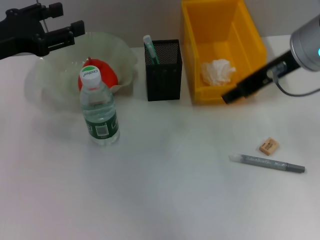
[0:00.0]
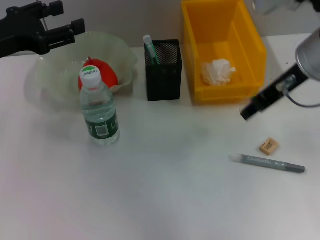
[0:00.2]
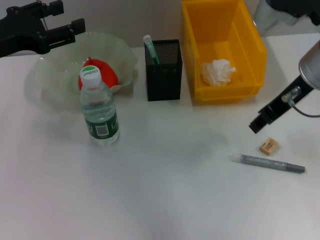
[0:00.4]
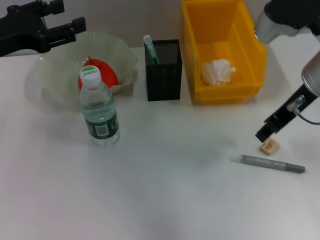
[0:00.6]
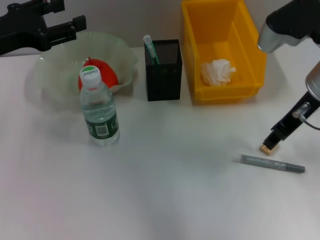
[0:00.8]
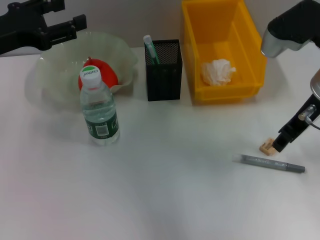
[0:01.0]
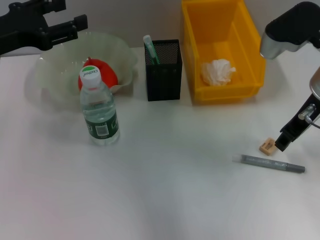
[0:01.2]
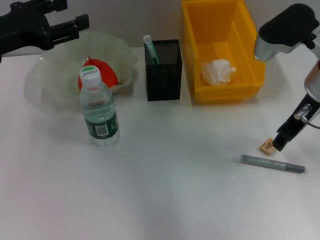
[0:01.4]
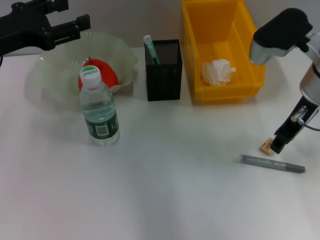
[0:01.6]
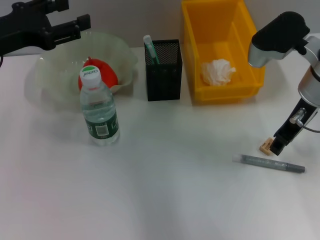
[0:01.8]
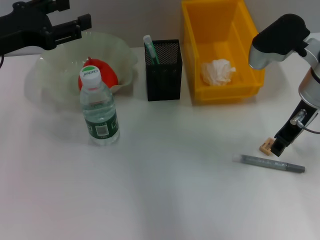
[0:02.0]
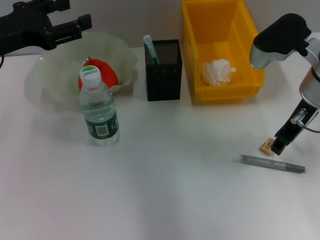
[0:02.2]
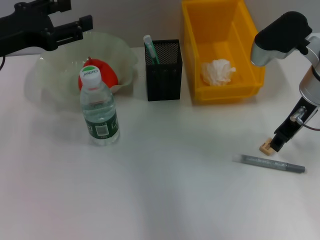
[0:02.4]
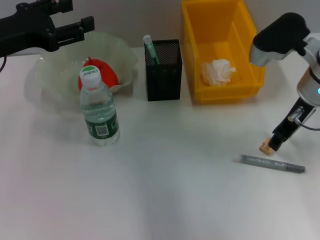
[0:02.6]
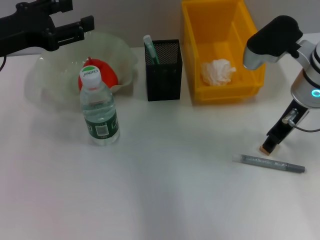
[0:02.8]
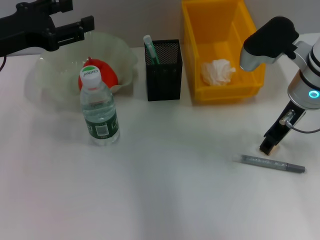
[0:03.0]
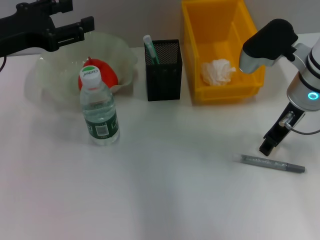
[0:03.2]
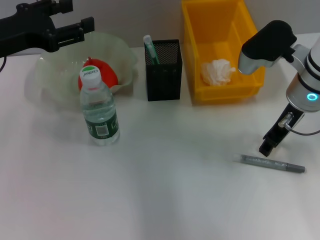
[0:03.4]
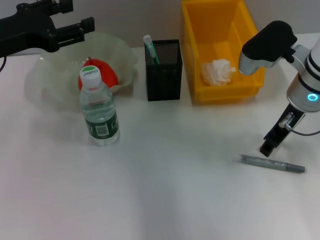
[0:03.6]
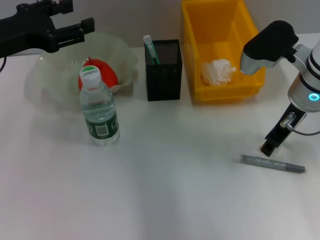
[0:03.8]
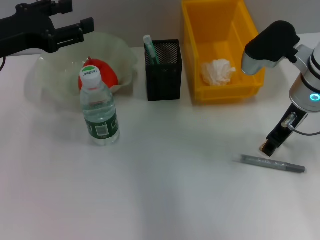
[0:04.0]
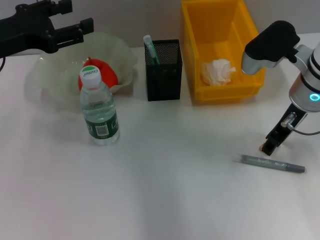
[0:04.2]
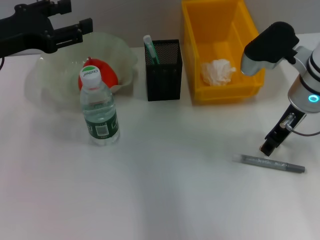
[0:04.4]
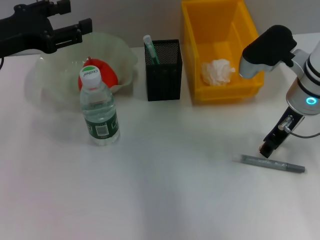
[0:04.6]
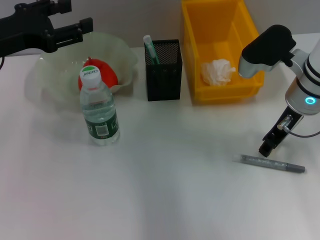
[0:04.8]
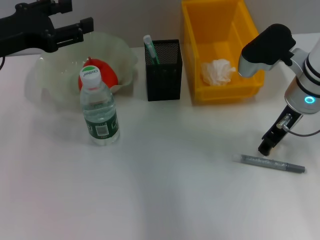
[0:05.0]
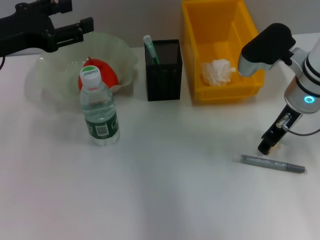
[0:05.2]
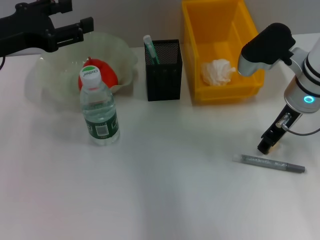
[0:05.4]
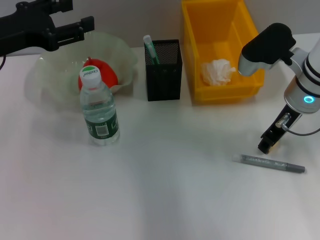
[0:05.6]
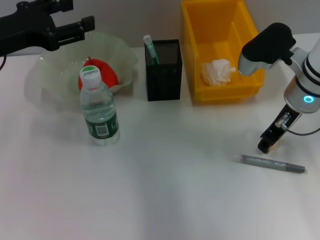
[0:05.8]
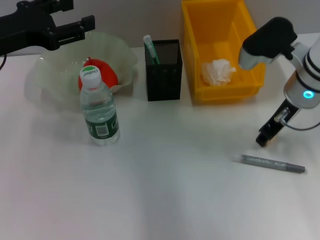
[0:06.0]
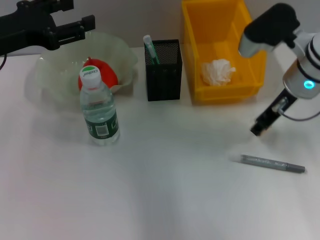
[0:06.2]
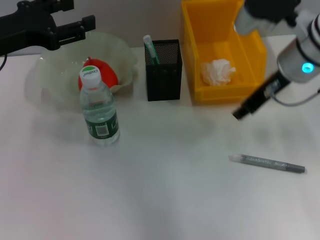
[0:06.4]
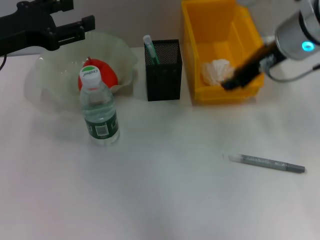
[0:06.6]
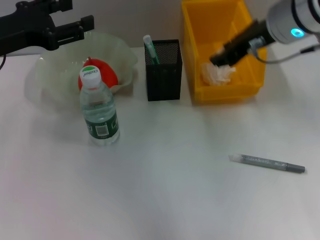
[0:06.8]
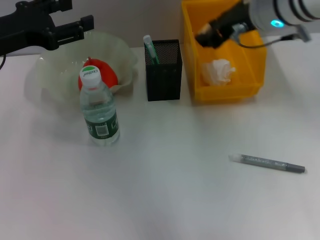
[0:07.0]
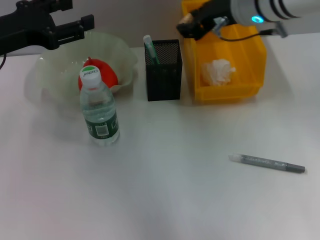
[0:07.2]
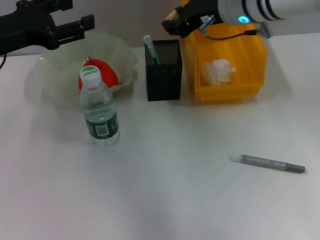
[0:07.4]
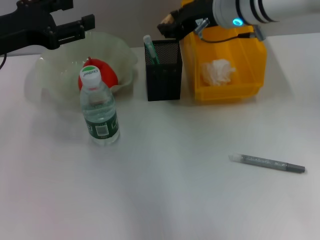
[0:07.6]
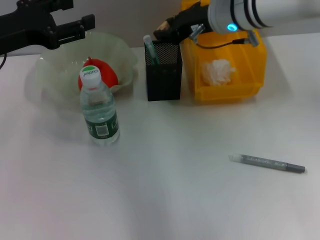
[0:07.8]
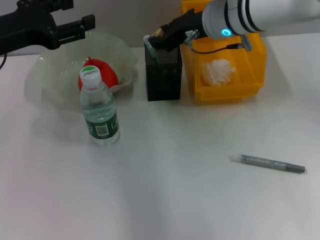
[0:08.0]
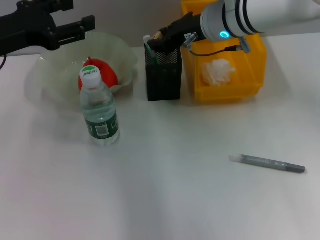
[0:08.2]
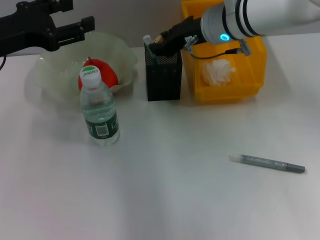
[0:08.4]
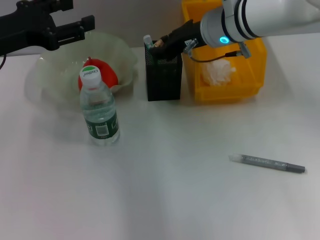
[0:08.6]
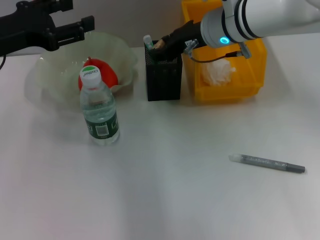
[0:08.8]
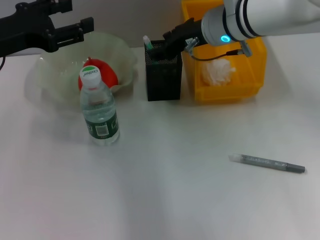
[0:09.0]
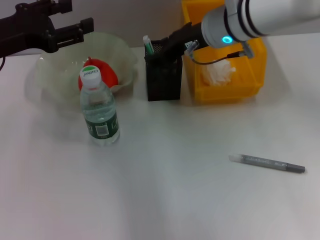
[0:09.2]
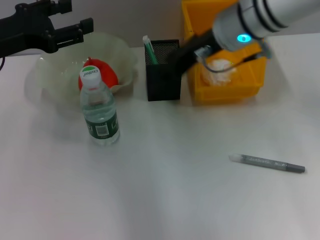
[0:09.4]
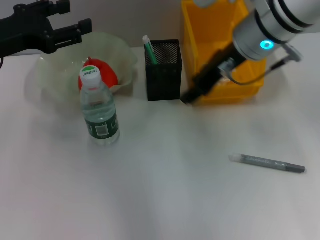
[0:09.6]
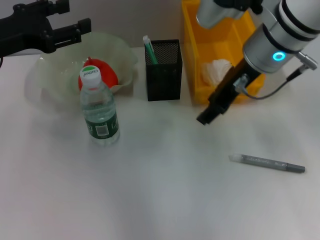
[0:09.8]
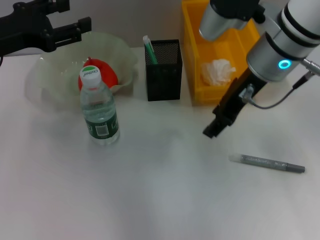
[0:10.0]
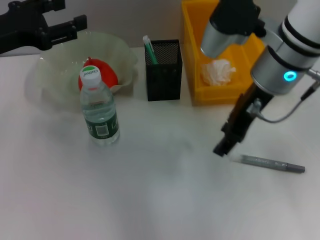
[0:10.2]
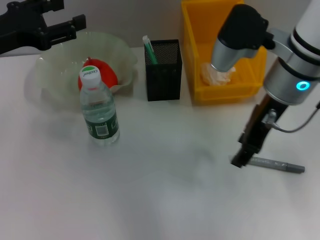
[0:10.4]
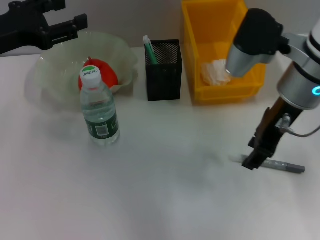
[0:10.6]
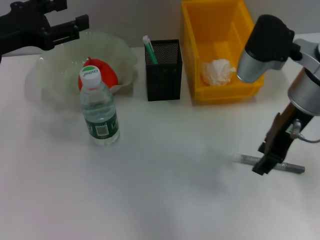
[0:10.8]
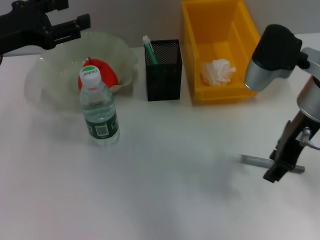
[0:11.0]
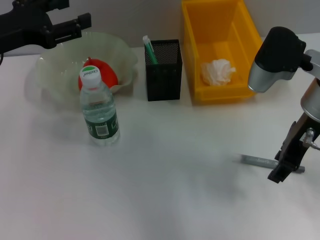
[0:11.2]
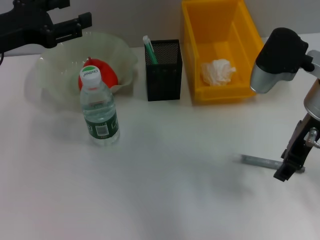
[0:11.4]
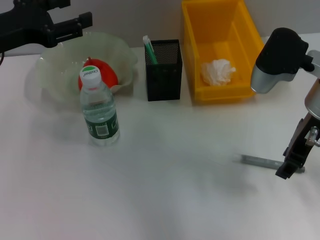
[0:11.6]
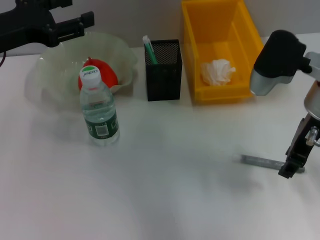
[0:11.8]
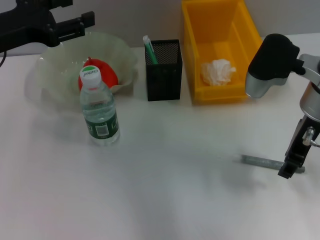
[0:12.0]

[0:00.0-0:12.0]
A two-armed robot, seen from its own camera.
Step, 0:00.0 to 0:05.8: Grab the eraser with the right hand.
Step, 0:06.0 to 0:08.8: Put the eraser into the pen holder with the right hand.
0:00.0 to 0:01.6: The right gripper goes roughly 5 cm downward.
0:01.6 to 0:03.0: The grippers stay close to where they were, moving slightly.
0:03.0 to 0:04.4: Neither gripper changes place.
0:04.4 to 0:06.0: Both grippers stay put.
0:06.0 to 0:07.6: The right gripper travels to the left, upward and forward by some 10 cm.
0:07.6 to 0:09.0: The grippers stay close to where they were, moving slightly.
0:09.0 to 0:10.4: The right gripper is displaced backward by some 10 cm.
0:10.4 to 0:12.0: The right gripper ends up roughly 5 cm from where it was.

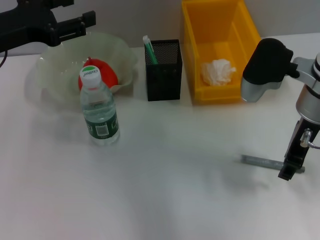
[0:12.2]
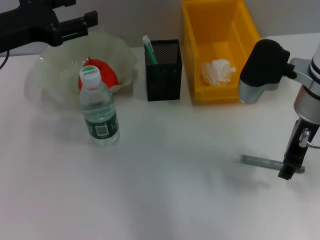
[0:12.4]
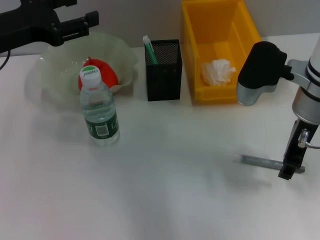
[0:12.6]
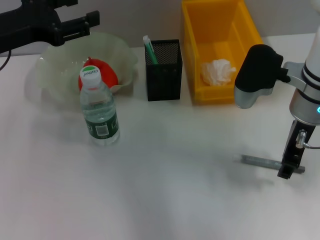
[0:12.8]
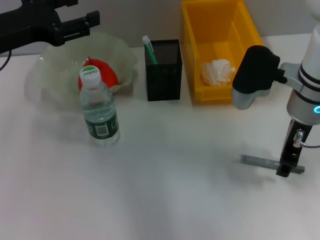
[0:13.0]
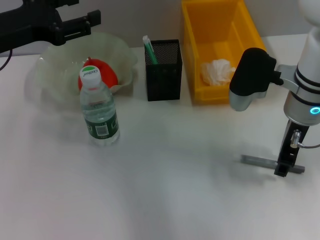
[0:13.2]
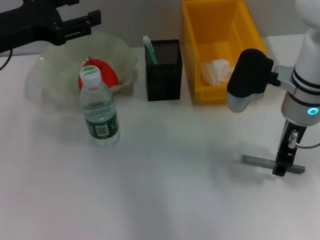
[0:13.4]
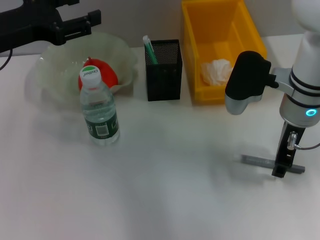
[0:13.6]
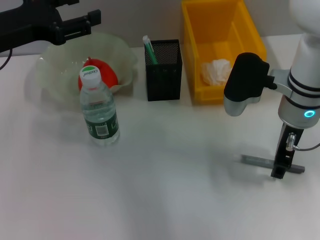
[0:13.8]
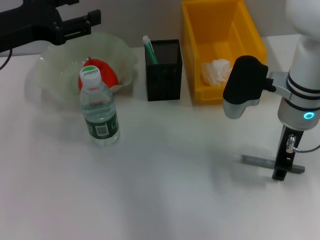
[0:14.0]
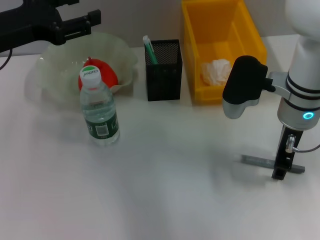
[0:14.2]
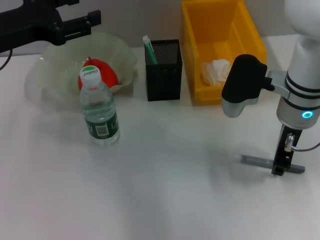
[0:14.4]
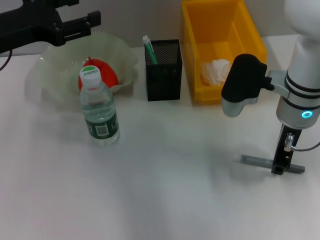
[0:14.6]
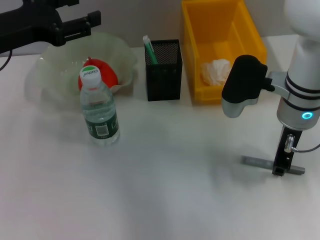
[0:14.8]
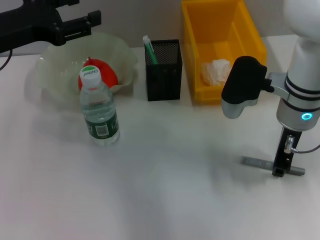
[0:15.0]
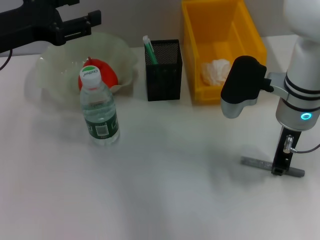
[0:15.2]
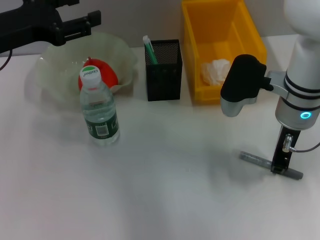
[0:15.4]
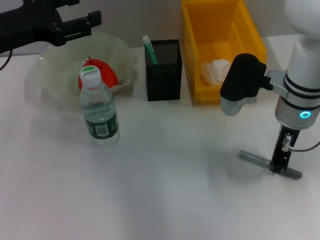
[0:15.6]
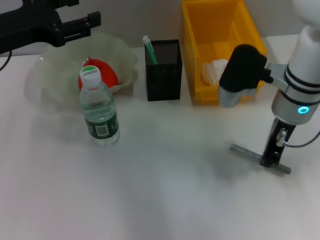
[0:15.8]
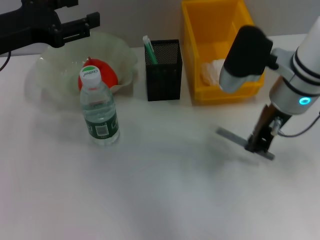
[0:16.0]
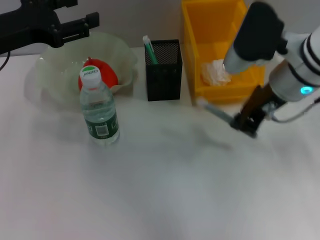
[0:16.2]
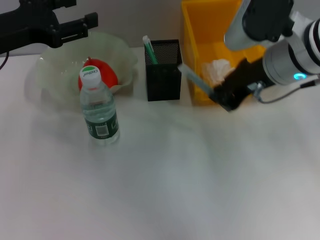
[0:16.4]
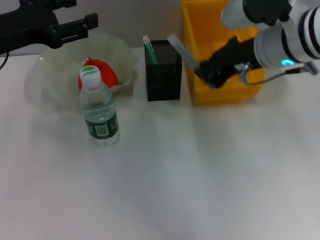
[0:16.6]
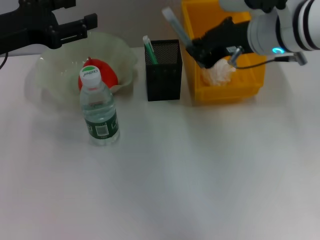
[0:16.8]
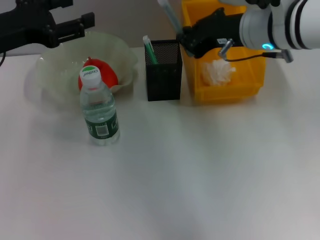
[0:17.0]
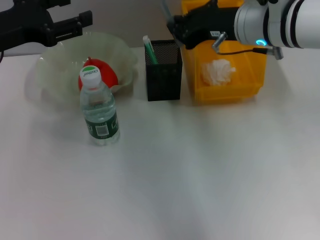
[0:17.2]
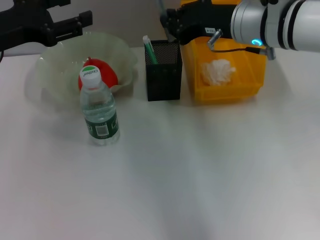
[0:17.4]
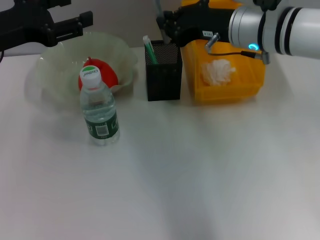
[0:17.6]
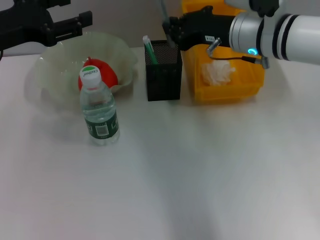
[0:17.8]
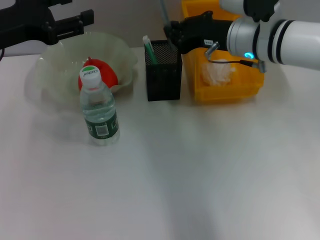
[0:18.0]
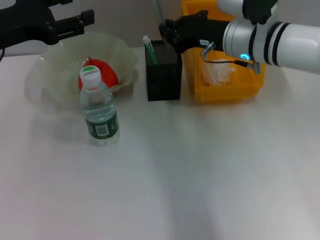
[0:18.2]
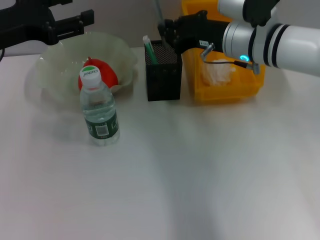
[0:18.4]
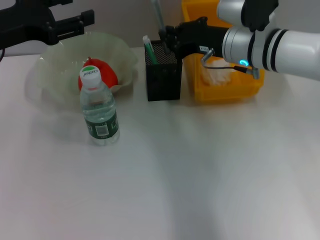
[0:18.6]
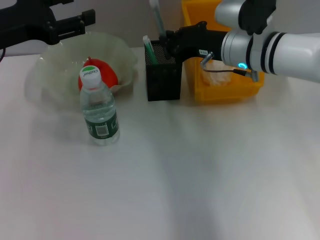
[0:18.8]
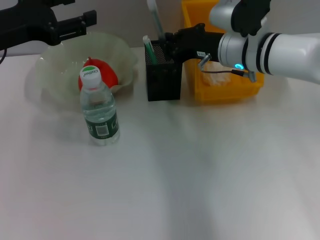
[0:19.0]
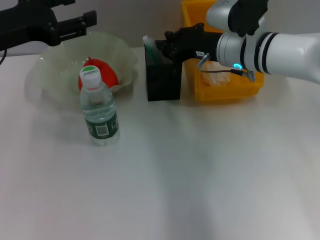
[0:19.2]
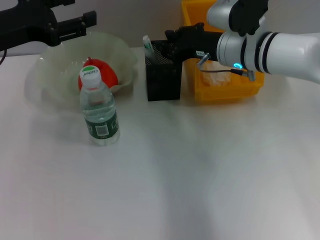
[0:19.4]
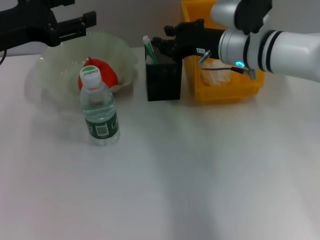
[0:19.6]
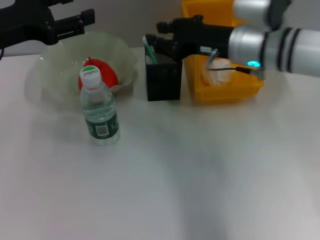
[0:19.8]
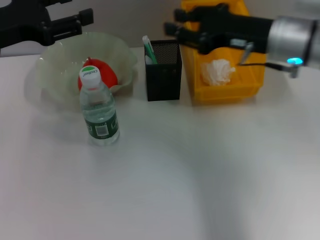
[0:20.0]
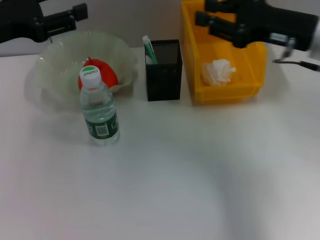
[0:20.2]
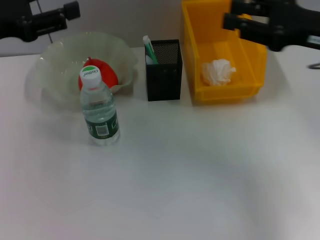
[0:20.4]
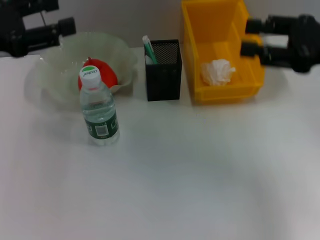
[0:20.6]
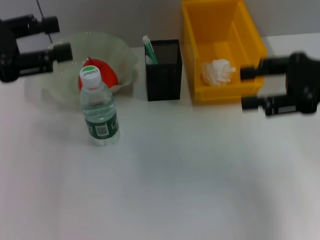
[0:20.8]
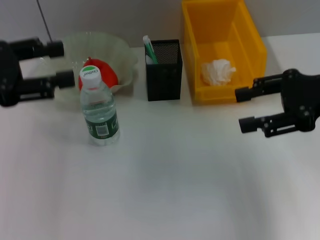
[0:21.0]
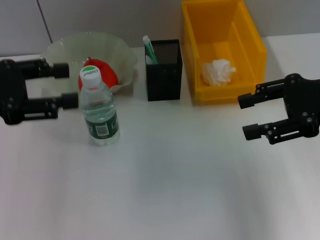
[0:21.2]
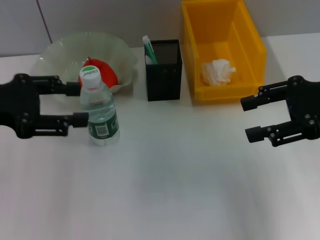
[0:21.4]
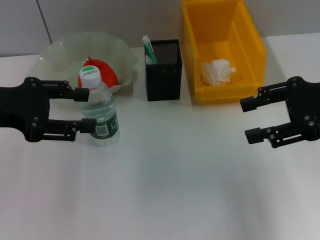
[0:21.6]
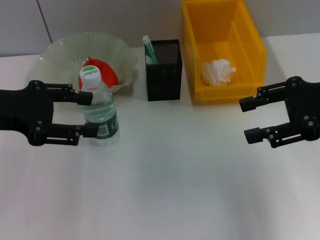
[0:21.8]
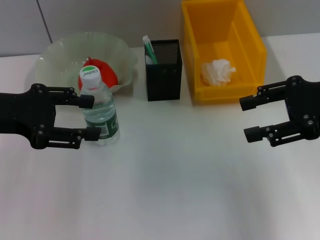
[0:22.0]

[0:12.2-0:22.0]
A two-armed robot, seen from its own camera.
Step, 0:12.2 to 0:15.4: Grab the gray glue with the right hand.
Step, 0:15.8 to 0:19.4: Place the gray glue into the pen holder with the right hand.
0:12.2 to 0:13.6: The grippers move only a little.
0:13.6 to 0:15.0: The right gripper closes.
0:15.0 to 0:16.4: The right gripper goes about 5 cm upward.
0:16.4 to 0:17.8: The right gripper is displaced forward by roughly 5 cm.
0:17.8 to 0:19.2: The grippers stay close to where they were, moving slightly.
0:19.2 to 0:20.6: The left gripper changes place by some 5 cm; the right gripper goes some 20 cm to the right, backward and upward, and opens its fingers.
